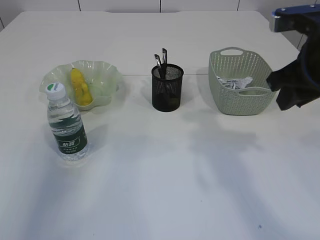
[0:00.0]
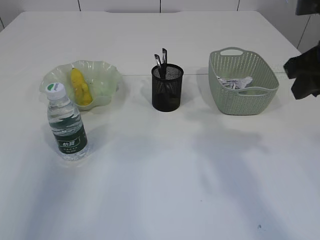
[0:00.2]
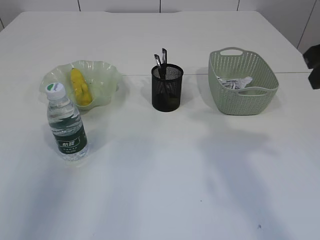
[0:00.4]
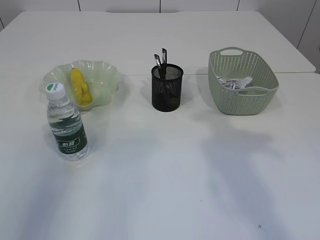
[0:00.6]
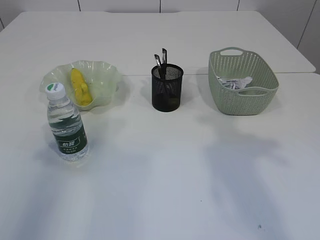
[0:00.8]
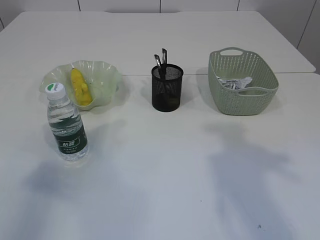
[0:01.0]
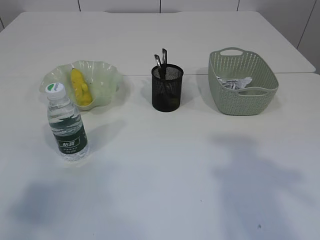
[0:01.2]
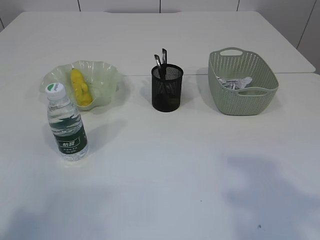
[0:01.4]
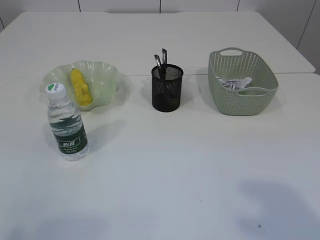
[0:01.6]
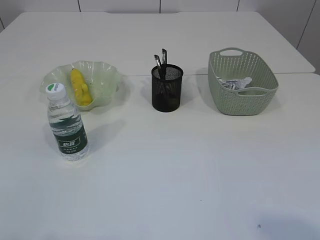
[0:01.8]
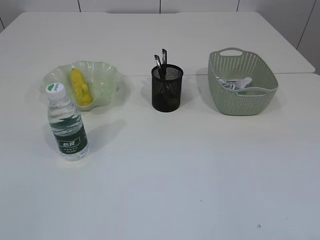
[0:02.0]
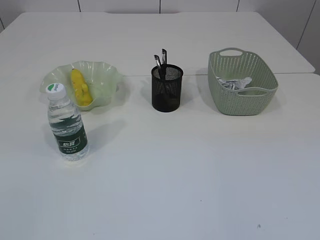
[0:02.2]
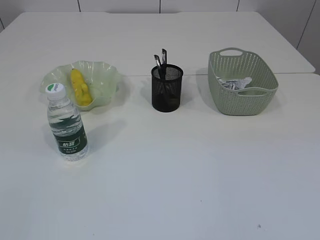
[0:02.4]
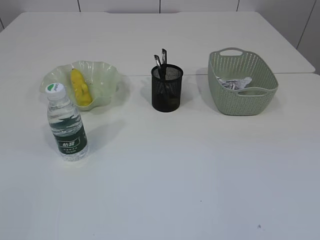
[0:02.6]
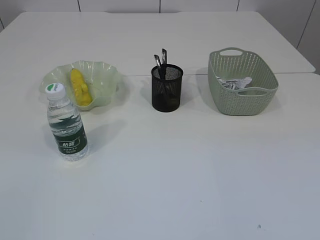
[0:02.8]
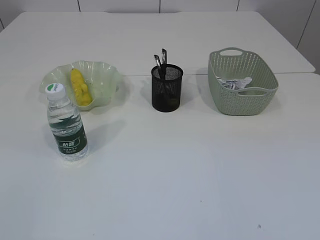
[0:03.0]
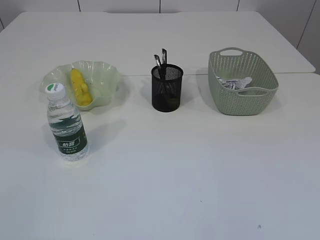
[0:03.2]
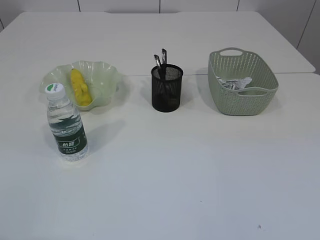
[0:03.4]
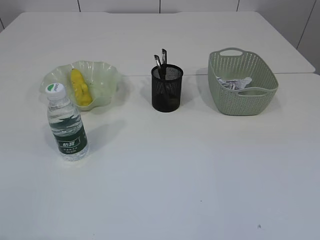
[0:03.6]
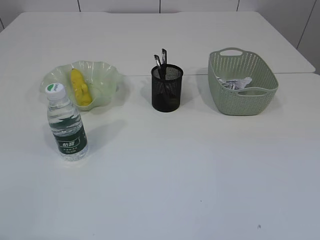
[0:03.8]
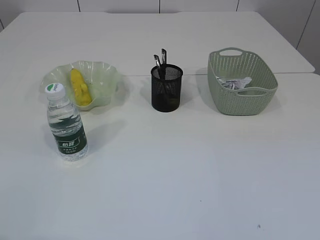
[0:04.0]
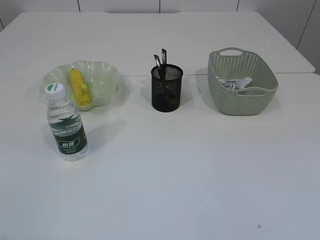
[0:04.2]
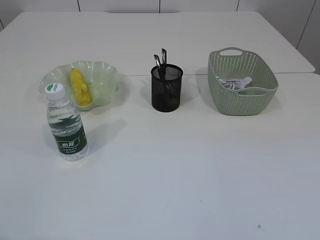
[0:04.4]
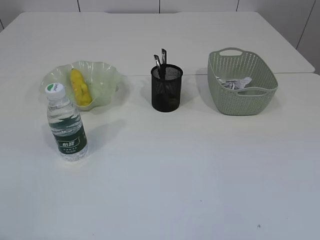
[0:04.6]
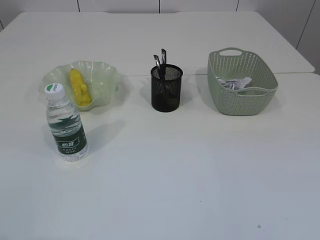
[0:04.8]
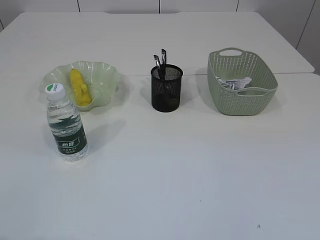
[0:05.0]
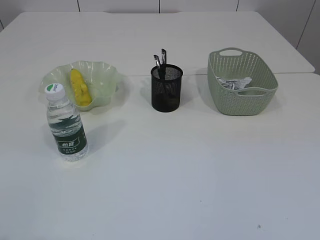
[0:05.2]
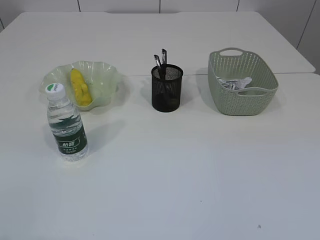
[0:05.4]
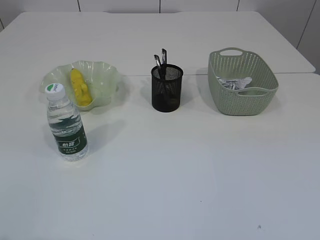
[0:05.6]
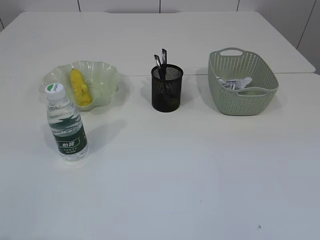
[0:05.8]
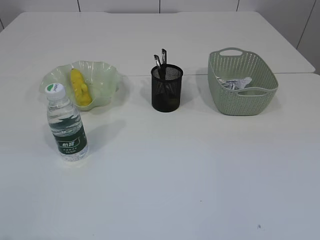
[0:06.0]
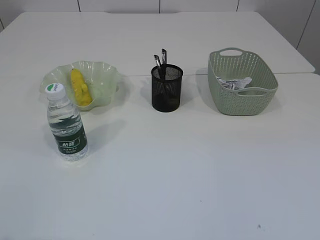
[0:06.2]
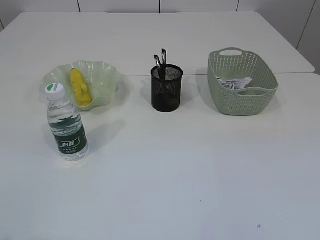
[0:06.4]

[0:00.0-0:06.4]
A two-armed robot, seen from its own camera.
0:00.0 to 0:01.6: The right gripper moves backward and upward, approximately 25 cm; the left gripper moves backward, roughly 35 cm.
0:01.6 to 0:03.2: The left gripper moves downward, roughly 10 cm.

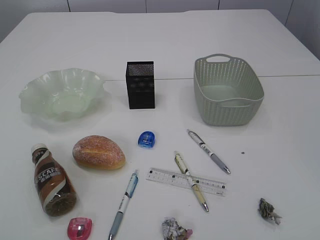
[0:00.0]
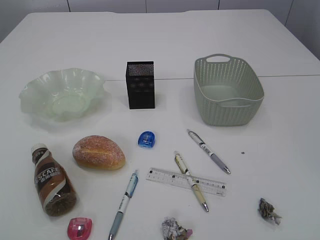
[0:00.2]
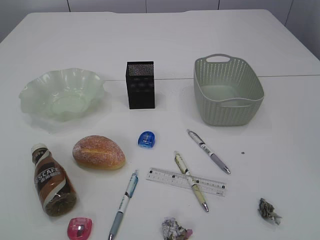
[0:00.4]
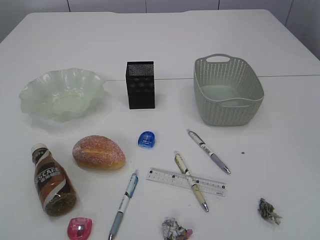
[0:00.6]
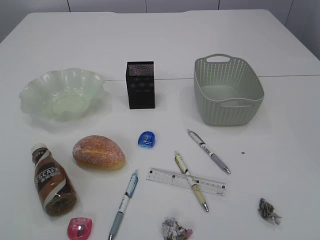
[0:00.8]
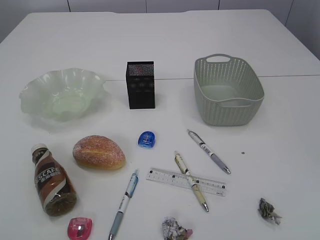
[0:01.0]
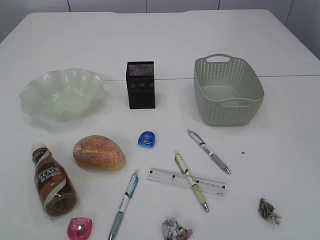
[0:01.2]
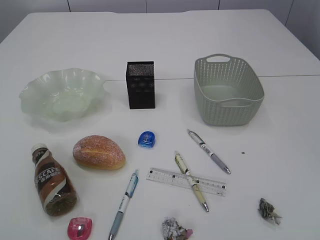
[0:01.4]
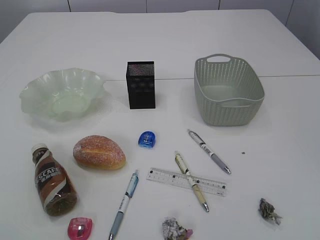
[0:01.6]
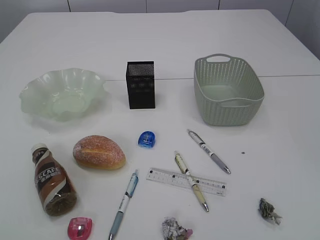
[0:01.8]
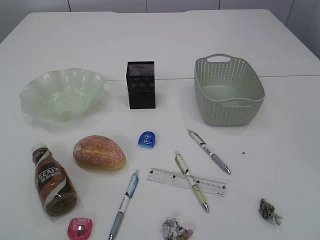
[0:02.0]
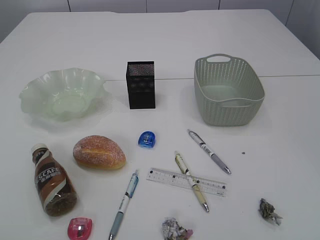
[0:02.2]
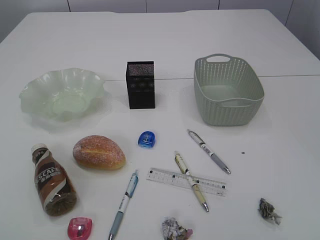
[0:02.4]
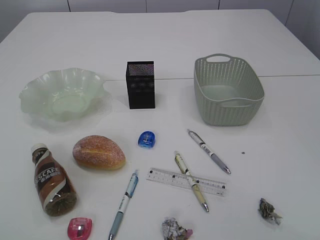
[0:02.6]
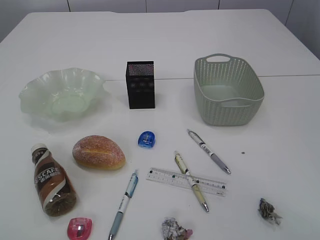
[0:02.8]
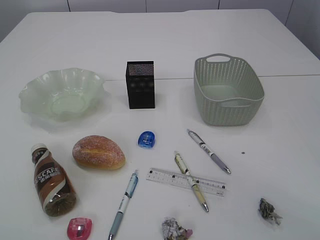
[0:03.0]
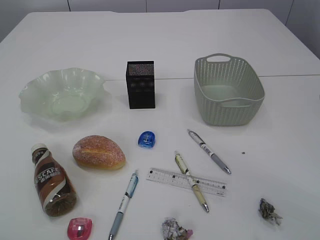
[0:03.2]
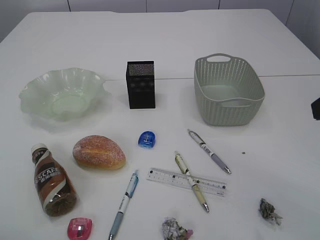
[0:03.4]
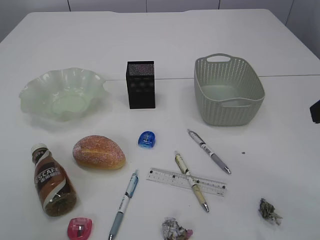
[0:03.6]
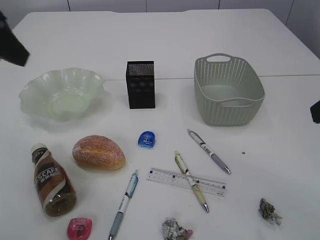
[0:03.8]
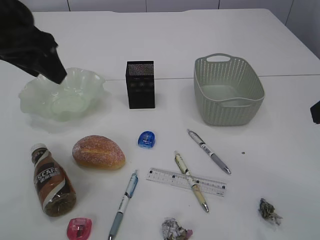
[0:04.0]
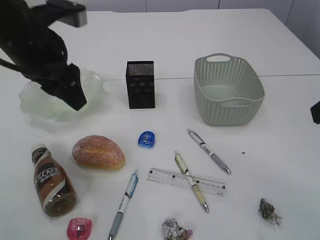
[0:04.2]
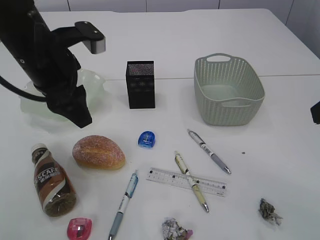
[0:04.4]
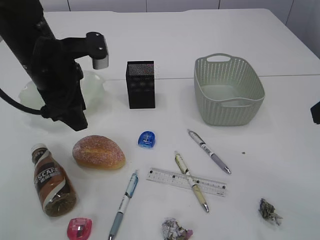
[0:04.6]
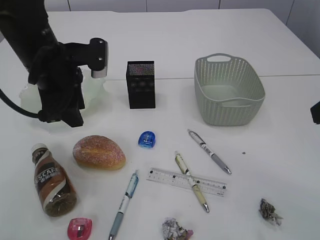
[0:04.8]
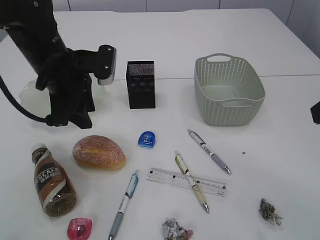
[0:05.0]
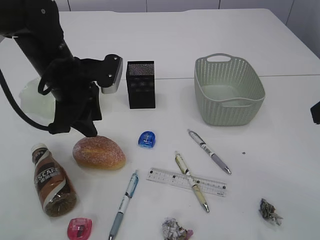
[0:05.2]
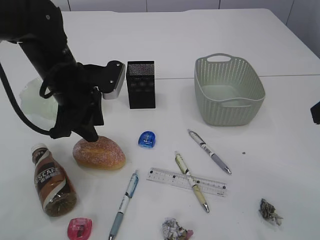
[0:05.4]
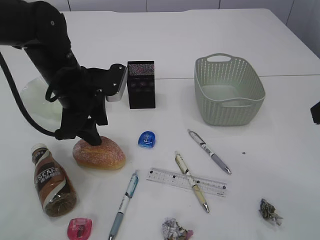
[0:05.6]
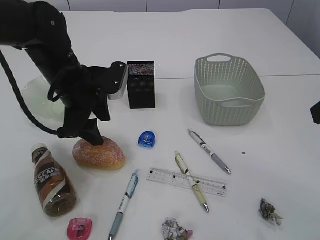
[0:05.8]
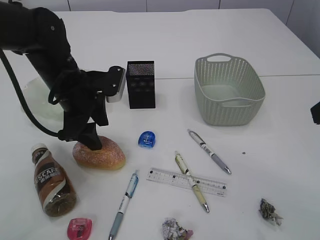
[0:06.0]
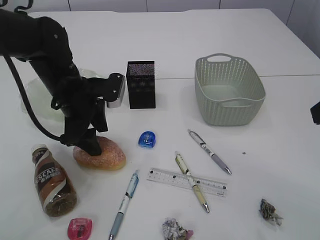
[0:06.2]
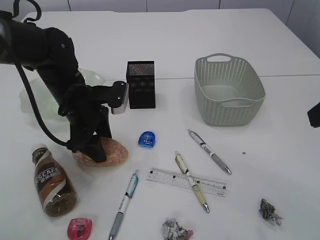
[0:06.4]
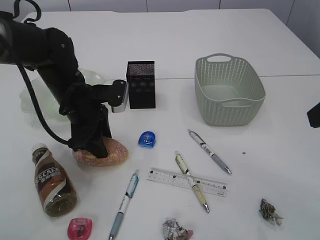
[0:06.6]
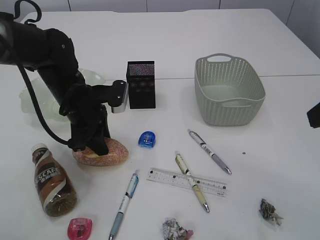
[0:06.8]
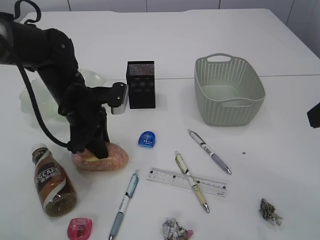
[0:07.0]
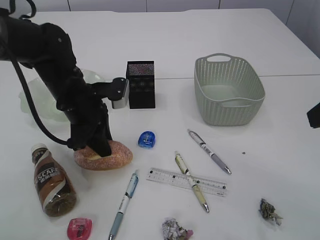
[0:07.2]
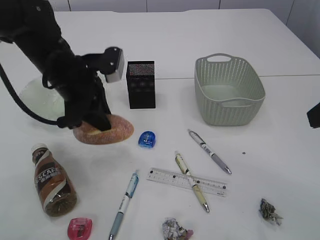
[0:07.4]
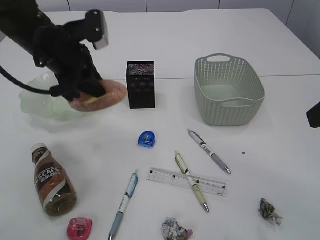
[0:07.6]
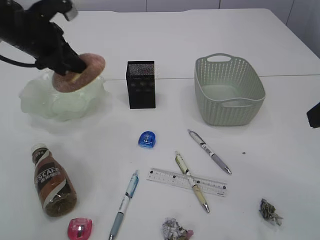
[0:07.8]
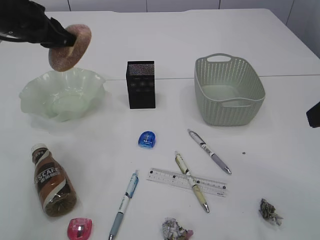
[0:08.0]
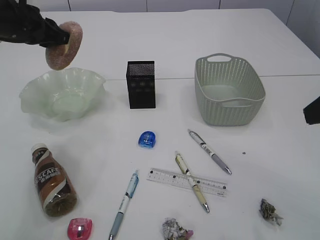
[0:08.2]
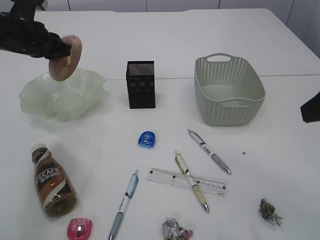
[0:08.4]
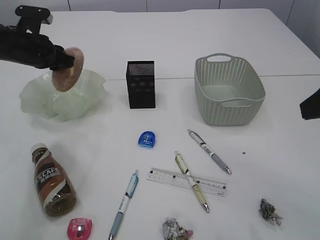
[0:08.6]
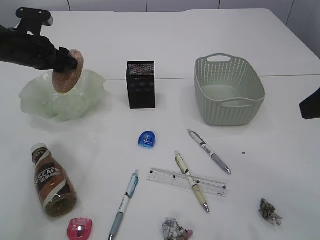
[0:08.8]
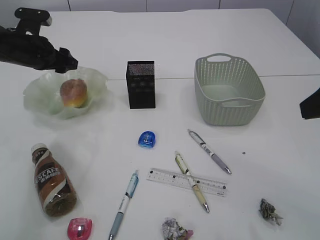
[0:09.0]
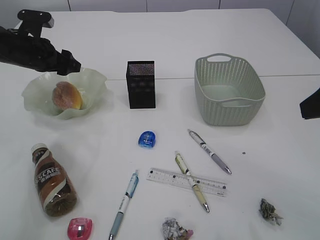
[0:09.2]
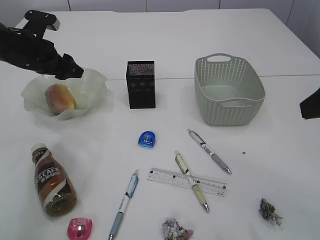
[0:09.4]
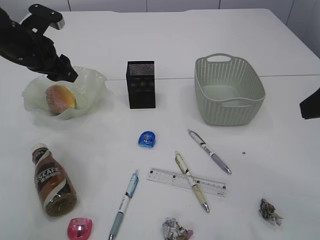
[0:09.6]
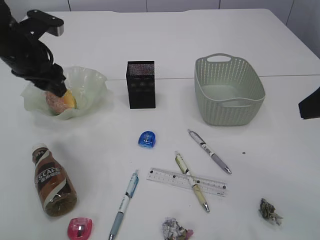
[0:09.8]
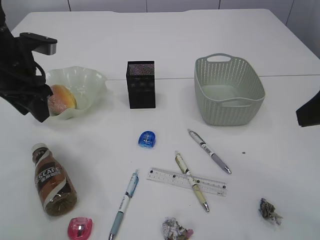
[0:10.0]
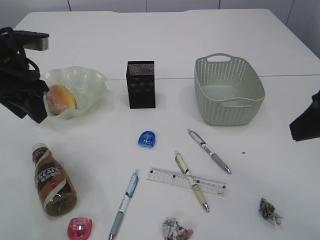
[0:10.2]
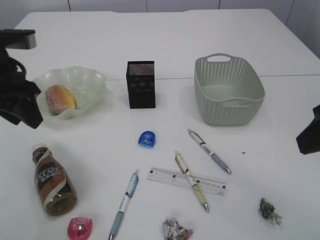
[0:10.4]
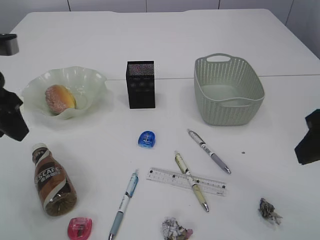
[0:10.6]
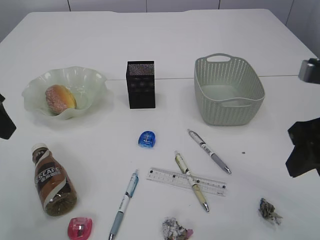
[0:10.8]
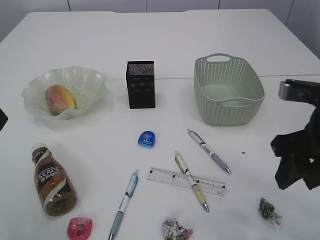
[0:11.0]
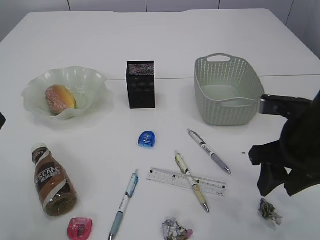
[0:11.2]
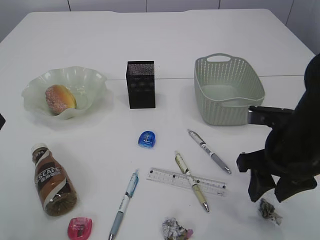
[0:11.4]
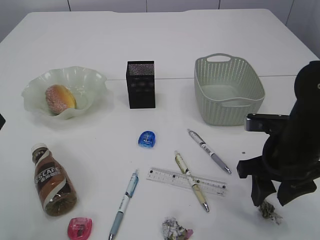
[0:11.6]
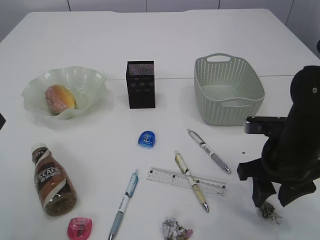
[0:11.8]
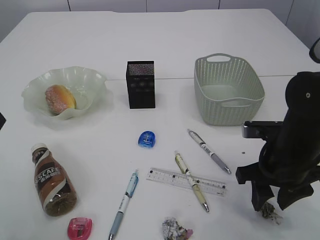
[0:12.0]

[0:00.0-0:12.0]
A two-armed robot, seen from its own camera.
Step, 0:07.8 to 0:10.0: place the bread in the plate.
0:03.0 to 0:04.4: The left gripper is displaced forward and to the right by approximately 30 cm.
0:04.4 to 0:06.0: The left gripper goes about 10 cm downward, and opens up.
0:06.0 to 0:07.6: The left gripper moves upward, roughly 5 cm, and closes.
0:07.6 to 0:09.0: The left gripper is displaced to the left, forward and downward by roughly 15 cm, and opens.
0:09.0 to 0:10.4: The left gripper heads backward and upward, covering about 15 cm, and closes its fingers.
0:10.4 to 0:12.0: The right gripper heads downward and forward, covering roughly 20 cm. The left gripper goes approximately 10 cm backward and upward.

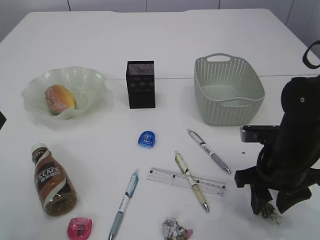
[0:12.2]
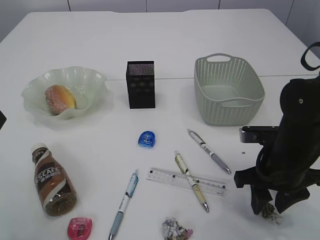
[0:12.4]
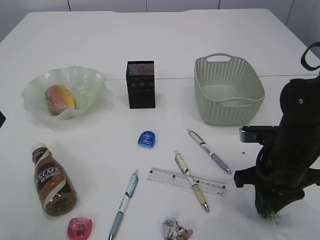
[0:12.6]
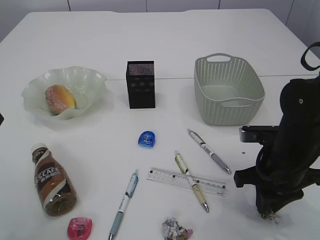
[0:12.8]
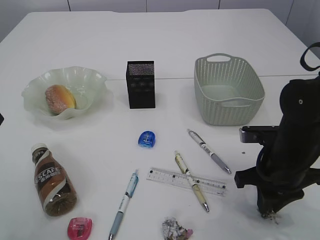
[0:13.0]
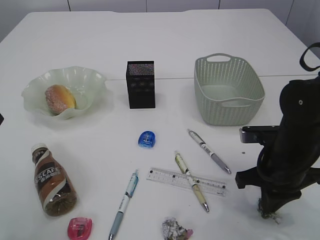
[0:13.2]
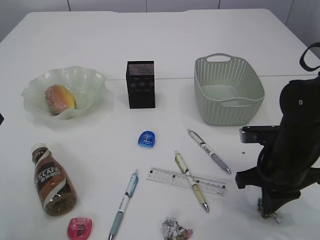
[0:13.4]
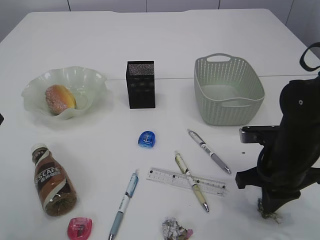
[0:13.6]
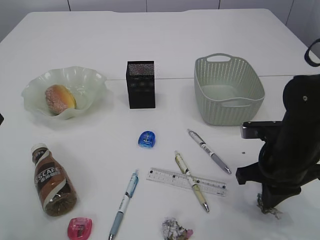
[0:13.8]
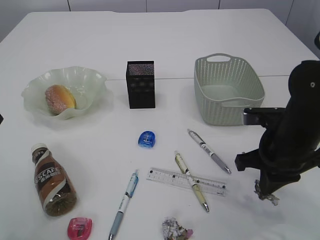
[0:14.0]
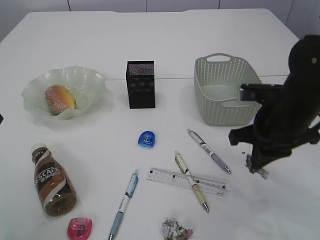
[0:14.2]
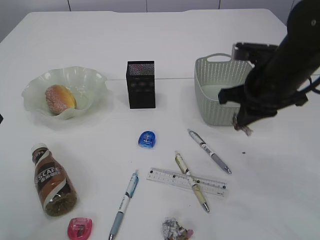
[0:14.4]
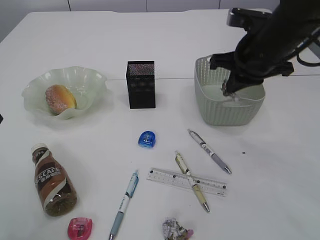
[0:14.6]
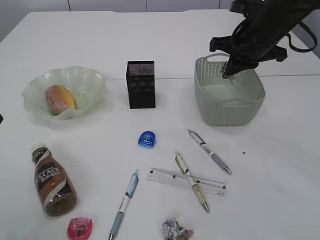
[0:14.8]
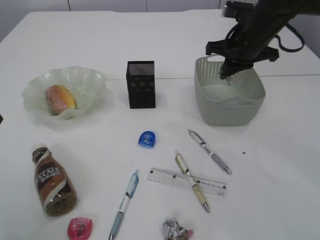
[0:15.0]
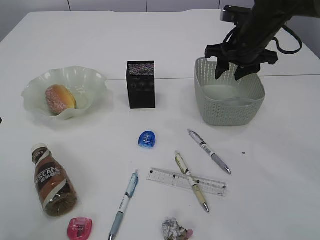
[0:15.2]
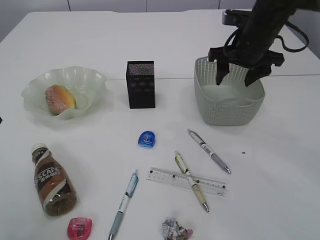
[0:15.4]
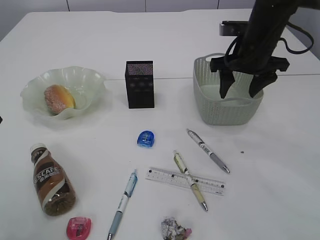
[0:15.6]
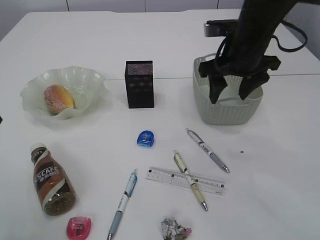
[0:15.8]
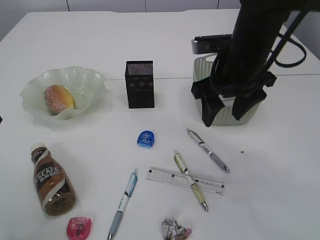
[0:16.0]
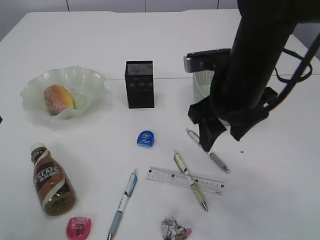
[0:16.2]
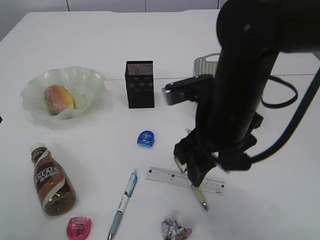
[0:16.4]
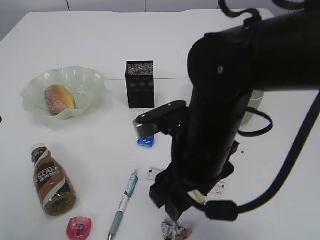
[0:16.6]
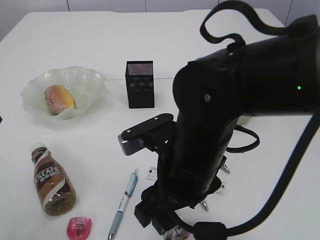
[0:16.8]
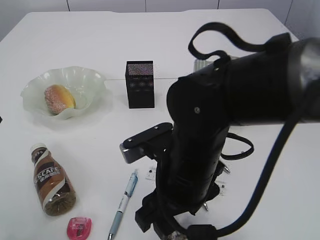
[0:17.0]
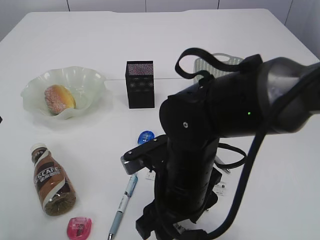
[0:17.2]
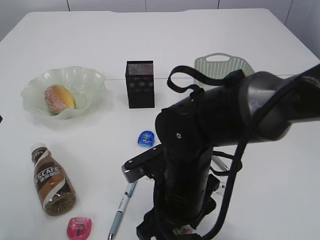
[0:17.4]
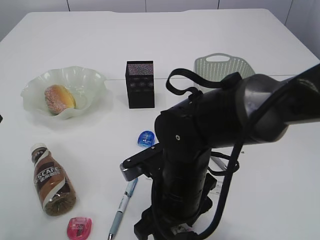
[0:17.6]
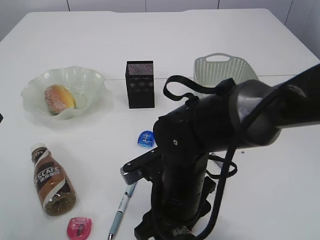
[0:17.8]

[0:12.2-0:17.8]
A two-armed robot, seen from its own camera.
Step, 0:14.0 to 0:15.4: Place the waste paper in the basket.
0:12.2 to 0:13.6: The right gripper closes.
0:13.6 to 0:15.0: The right gripper goes approximately 20 cm forward and upward.
0:15.0 to 0:16.4: The right gripper heads backward and to the left, covering about 20 cm, and opens up.
0:16.4 to 0:17.8: The right gripper heads downward and to the left, covering some 15 cm.
